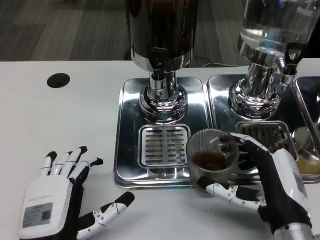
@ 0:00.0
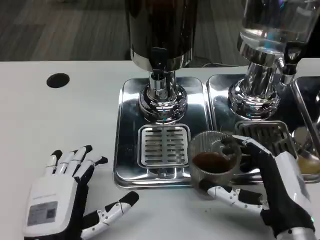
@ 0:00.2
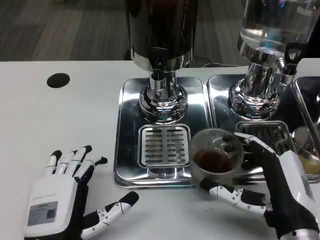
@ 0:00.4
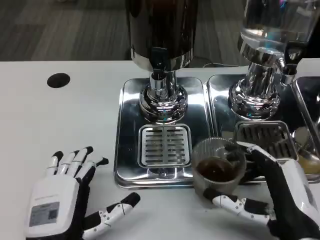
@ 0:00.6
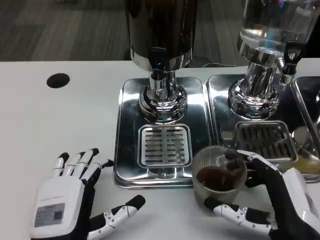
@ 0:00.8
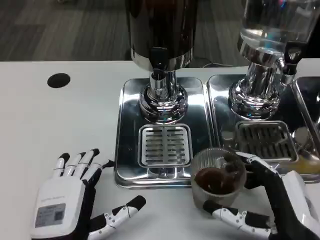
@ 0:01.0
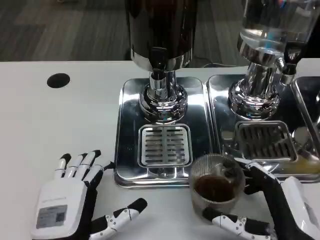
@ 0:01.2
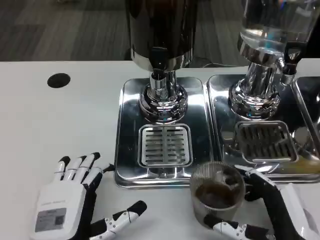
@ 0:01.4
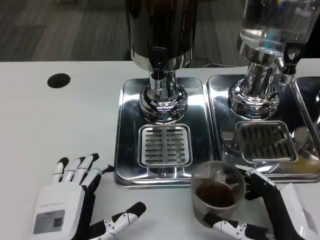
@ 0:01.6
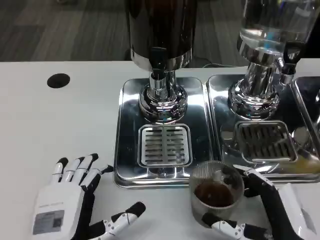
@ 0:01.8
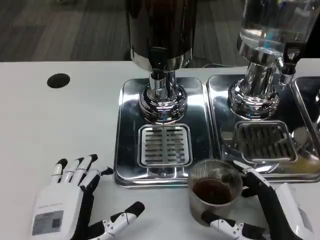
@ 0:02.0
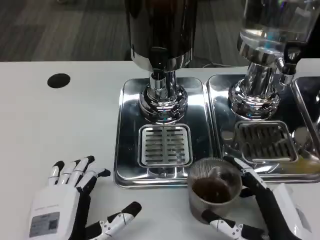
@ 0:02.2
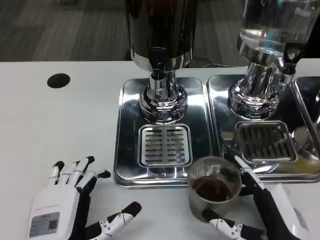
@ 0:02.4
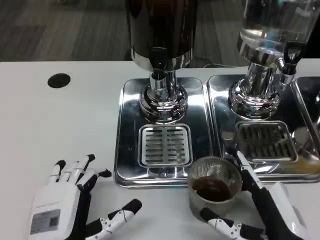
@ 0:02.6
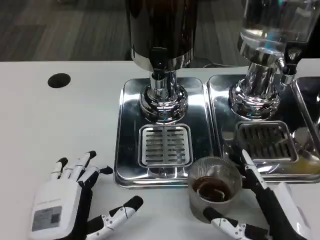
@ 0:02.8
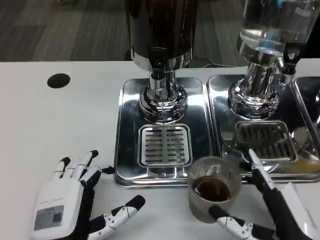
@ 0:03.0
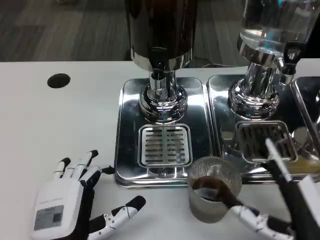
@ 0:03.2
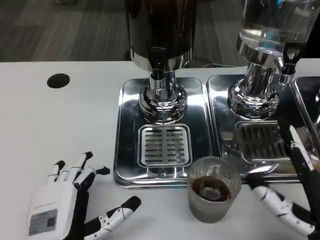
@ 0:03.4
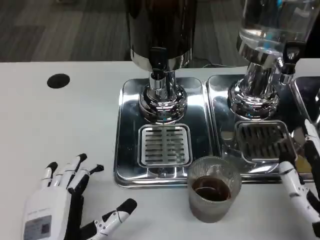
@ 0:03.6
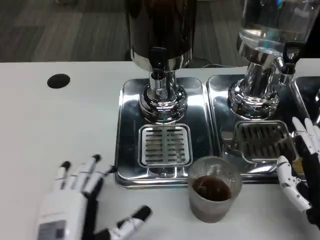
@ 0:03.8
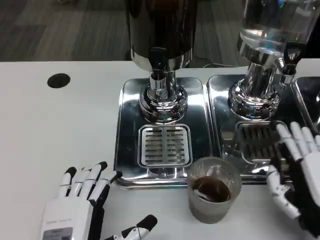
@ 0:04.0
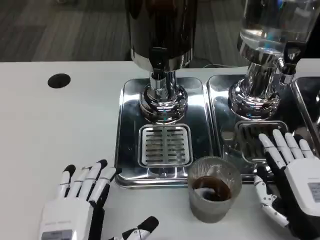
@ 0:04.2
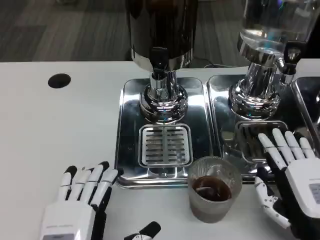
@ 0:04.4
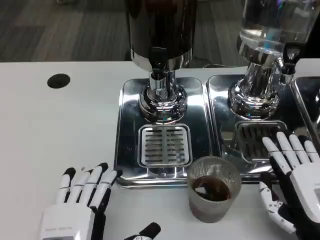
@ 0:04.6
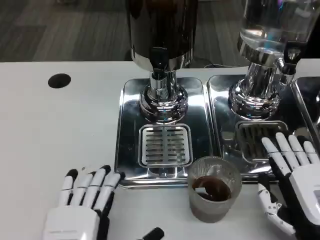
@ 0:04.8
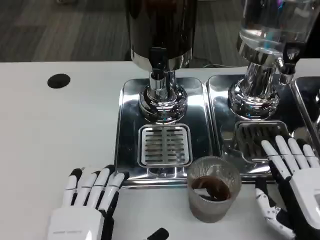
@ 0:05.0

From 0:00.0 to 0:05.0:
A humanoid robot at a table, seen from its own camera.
Task of the whole recording: Grasp the cup under the faucet to collect the drink, then remove the cup.
From 0:00.0 to 0:01.6: The right hand ends up approximately 5 cm from where it was.
From 0:01.6 to 0:03.4: The hands move only a little.
From 0:03.4 to 0:05.0: The left hand changes place by roughly 5 cm.
